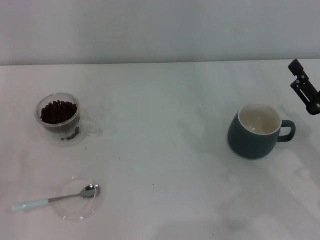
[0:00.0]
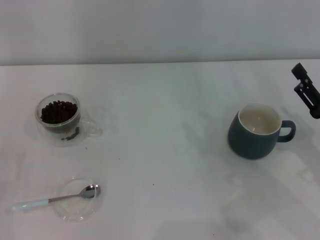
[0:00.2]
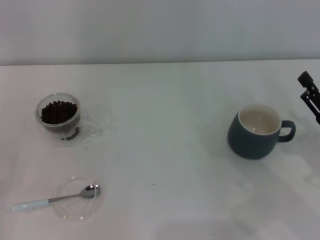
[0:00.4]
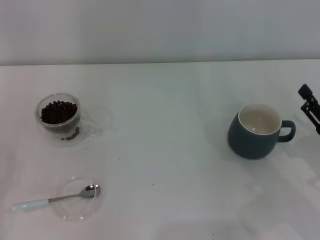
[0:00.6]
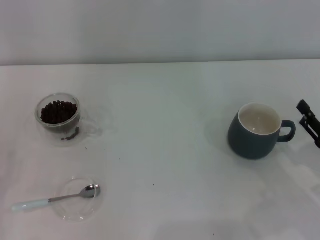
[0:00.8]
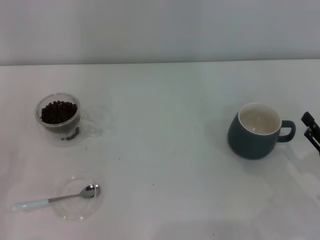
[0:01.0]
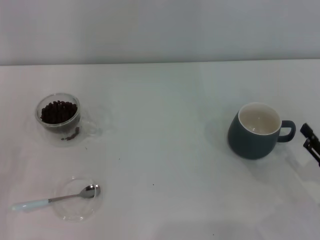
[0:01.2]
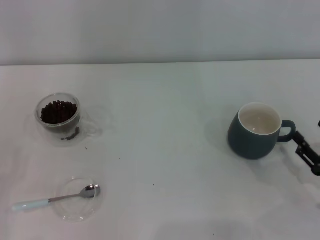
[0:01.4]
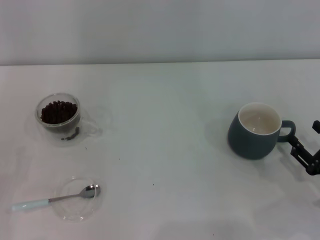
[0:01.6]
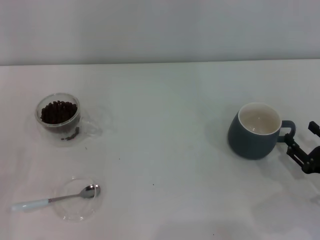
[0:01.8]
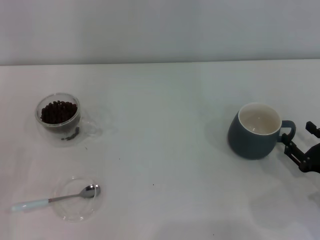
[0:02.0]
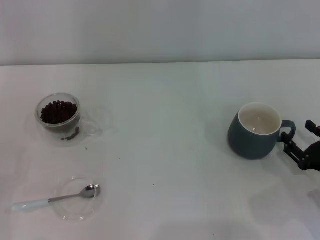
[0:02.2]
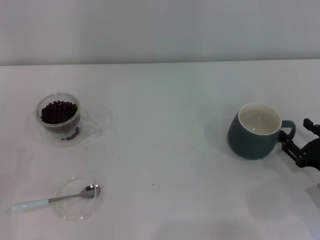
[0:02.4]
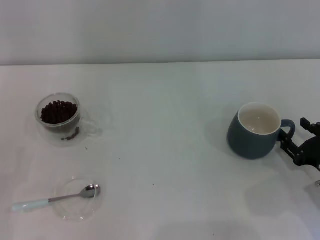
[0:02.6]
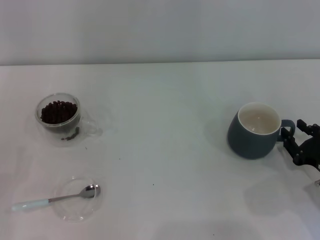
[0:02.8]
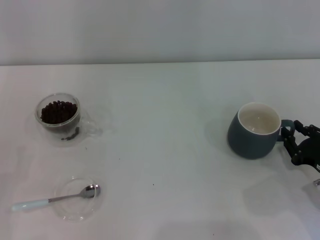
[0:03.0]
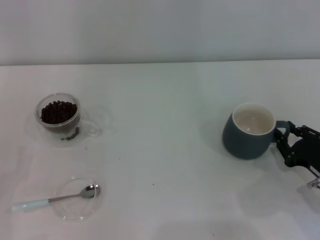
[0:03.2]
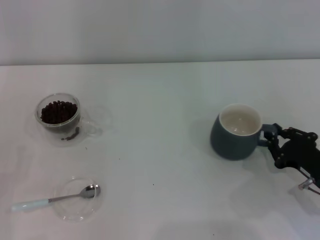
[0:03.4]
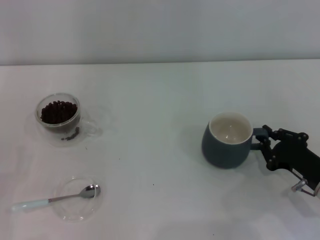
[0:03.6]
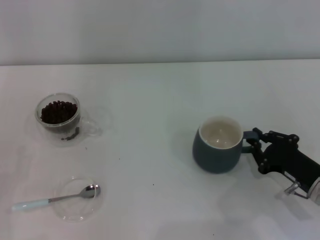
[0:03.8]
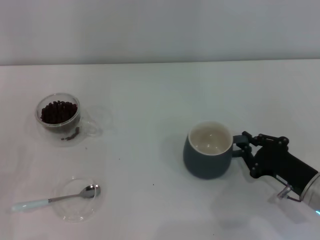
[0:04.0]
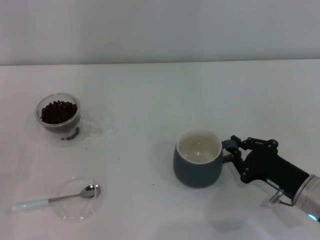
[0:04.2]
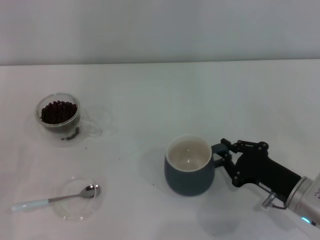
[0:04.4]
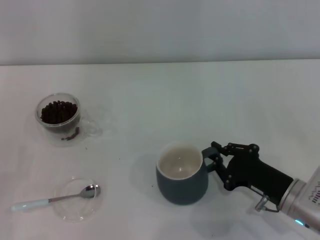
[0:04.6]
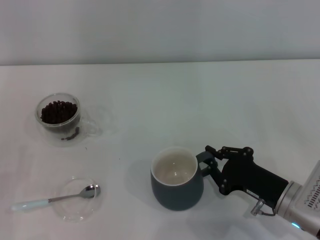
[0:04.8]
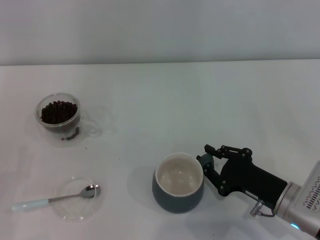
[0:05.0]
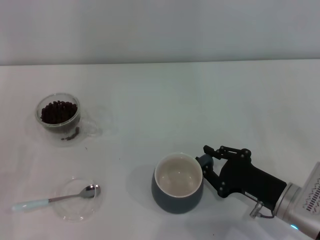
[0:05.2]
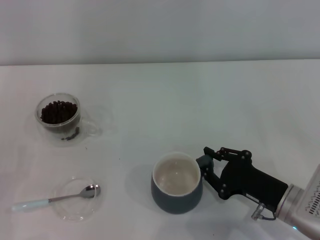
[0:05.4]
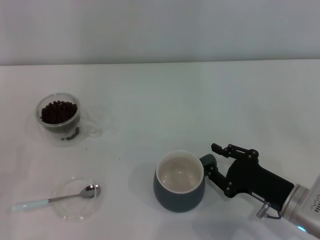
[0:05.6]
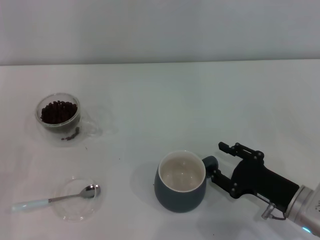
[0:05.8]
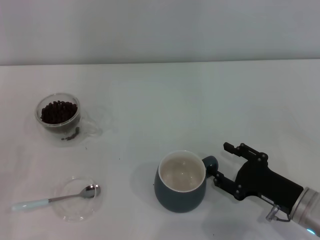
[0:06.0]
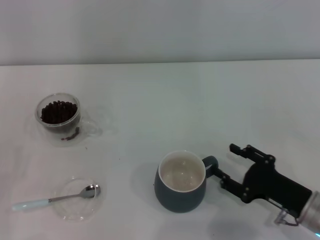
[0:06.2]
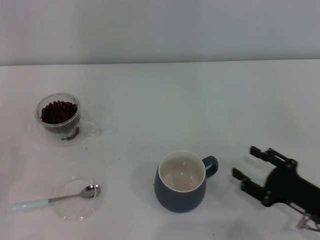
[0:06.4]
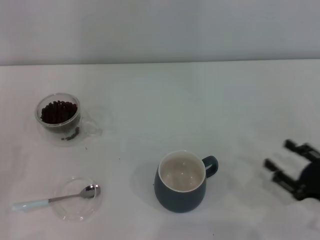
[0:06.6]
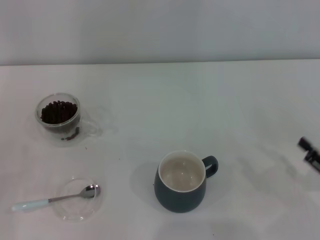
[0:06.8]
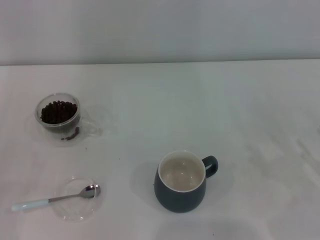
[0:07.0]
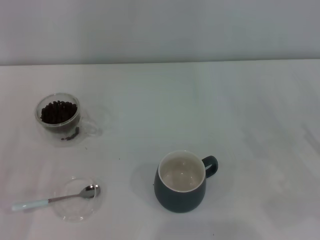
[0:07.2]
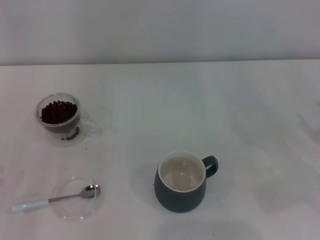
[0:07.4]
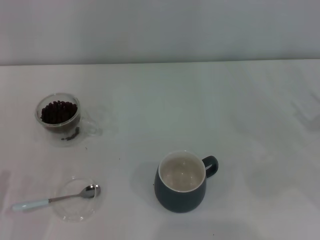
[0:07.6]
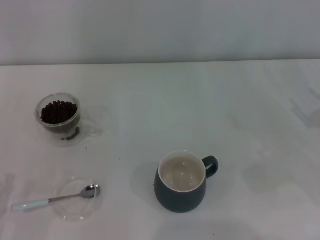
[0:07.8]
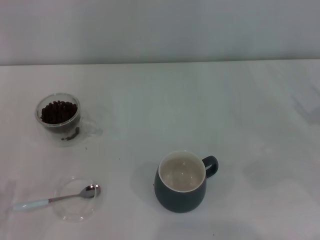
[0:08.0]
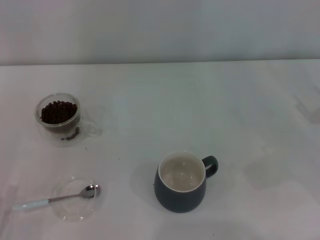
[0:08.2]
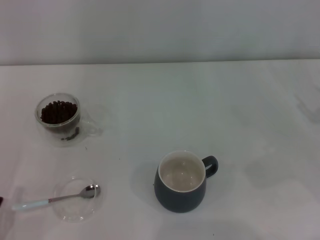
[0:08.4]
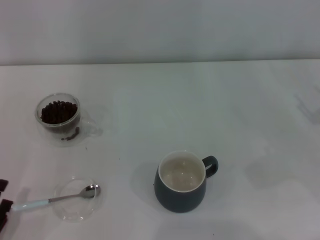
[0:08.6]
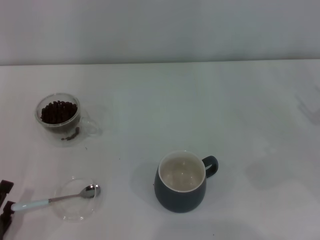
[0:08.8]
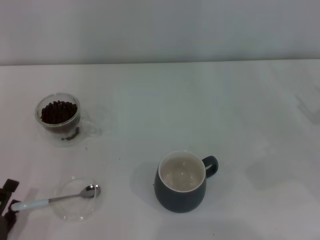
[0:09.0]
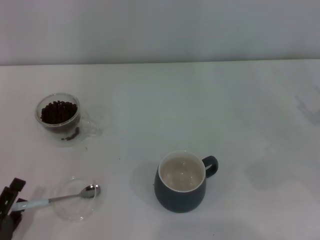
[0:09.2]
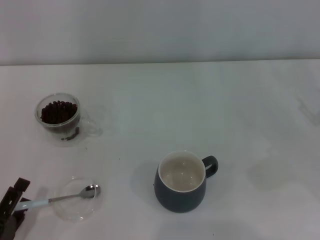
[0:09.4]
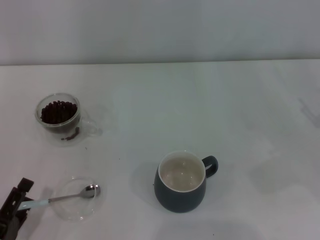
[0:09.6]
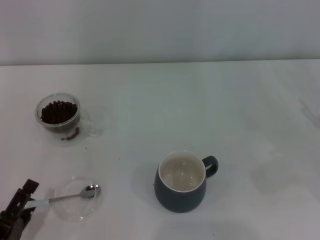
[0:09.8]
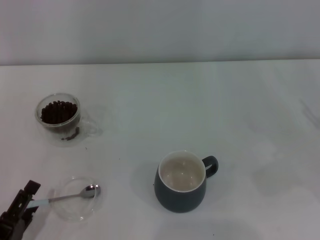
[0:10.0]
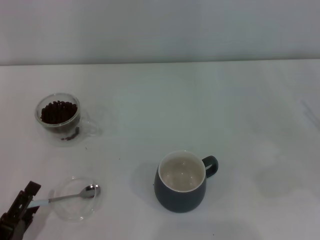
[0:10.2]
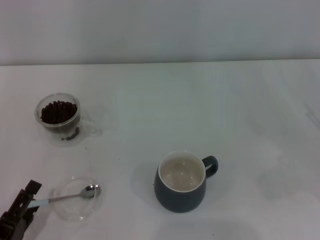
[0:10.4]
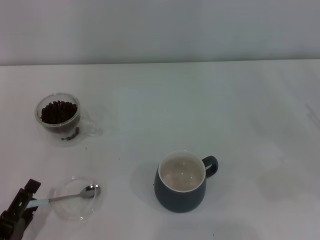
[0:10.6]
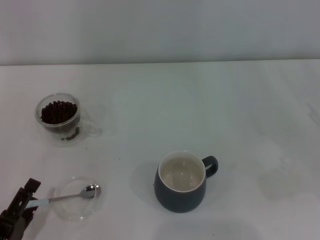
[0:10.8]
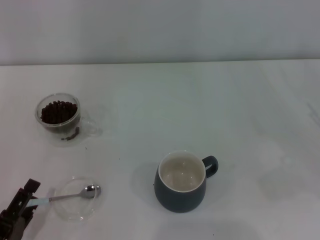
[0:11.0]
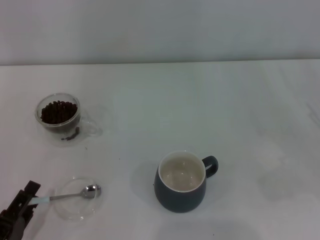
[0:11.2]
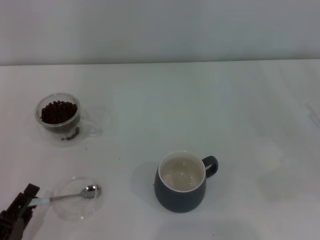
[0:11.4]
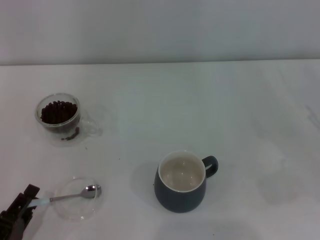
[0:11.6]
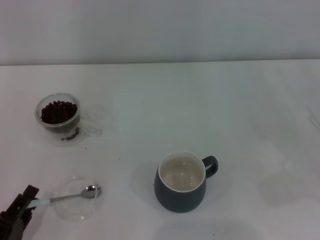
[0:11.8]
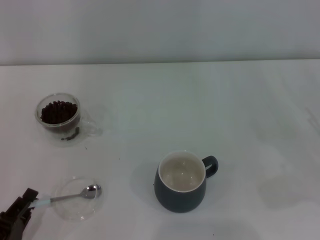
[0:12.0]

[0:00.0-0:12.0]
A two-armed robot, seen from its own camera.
Task of the whole recording: Use a blue spoon to take out the coffee beans from the glass and pour them into the gray cup.
Step, 0:00.0 to 0:06.4: Move the cup to the center of view with the left gripper.
0:00.0 to 0:01.6: The right gripper moves downward, roughly 5 cm.
0:01.6 to 0:03.0: The grippers make only small movements.
0:03.0 to 0:04.4: The right gripper shifts roughly 10 cm to the left, and closes.
0:04.4 to 0:06.0: The right gripper opens.
0:06.0 to 0:07.6: The right gripper goes about 15 cm to the right and upward.
0:09.0 to 0:10.4: There are only small adjustments of the grippers.
0:10.4 to 0:12.0: The left gripper closes.

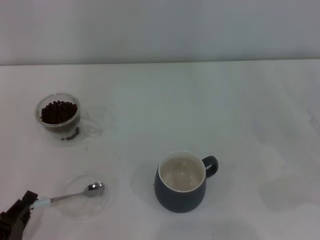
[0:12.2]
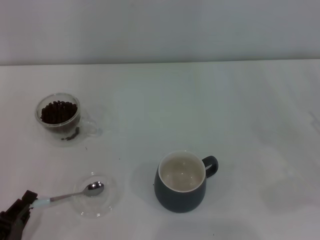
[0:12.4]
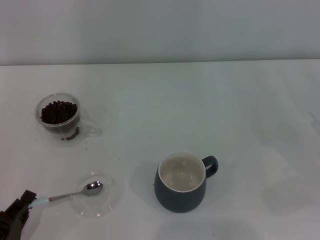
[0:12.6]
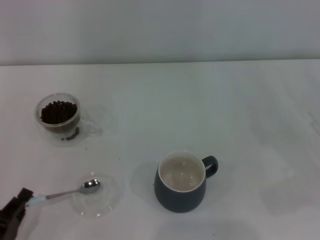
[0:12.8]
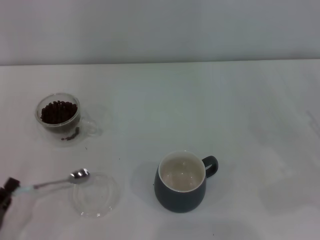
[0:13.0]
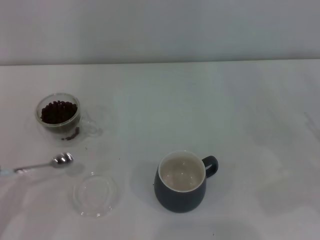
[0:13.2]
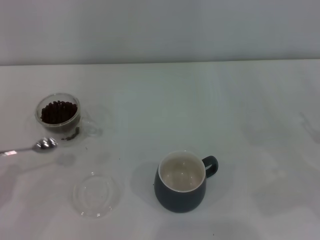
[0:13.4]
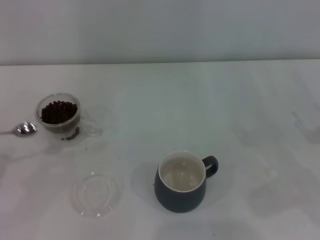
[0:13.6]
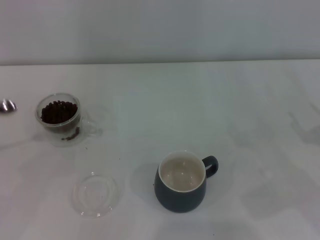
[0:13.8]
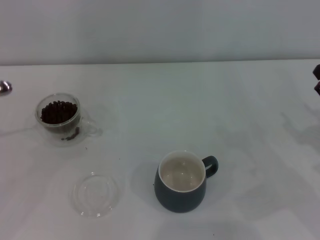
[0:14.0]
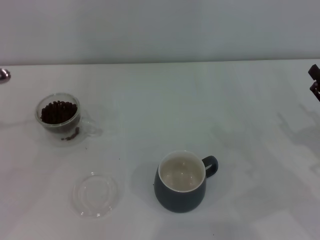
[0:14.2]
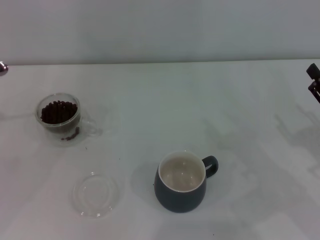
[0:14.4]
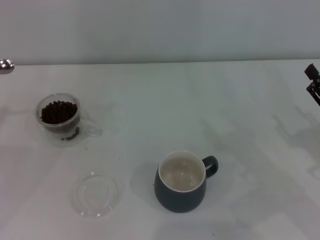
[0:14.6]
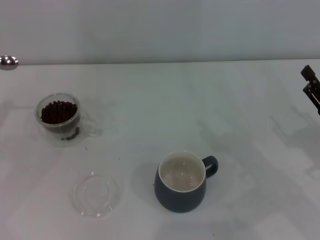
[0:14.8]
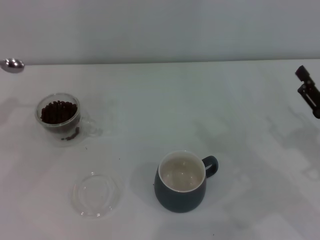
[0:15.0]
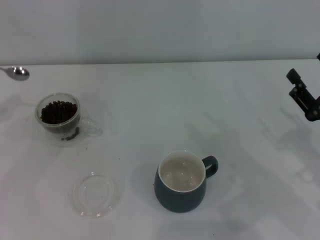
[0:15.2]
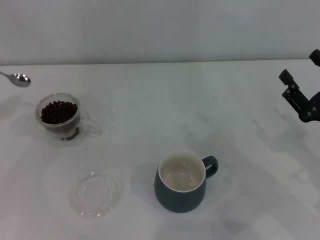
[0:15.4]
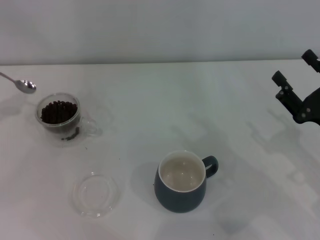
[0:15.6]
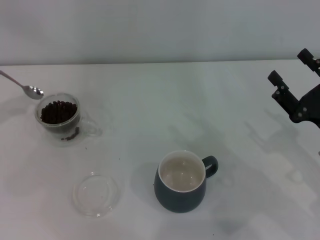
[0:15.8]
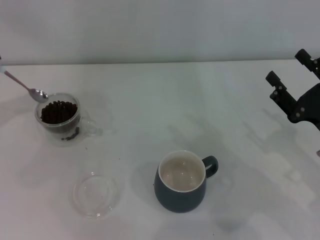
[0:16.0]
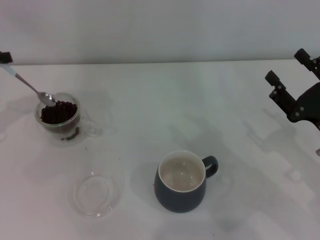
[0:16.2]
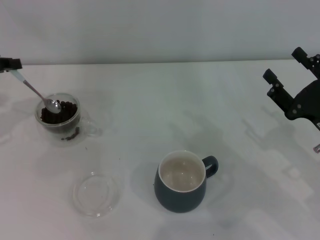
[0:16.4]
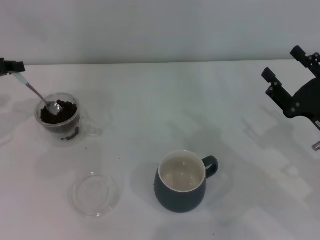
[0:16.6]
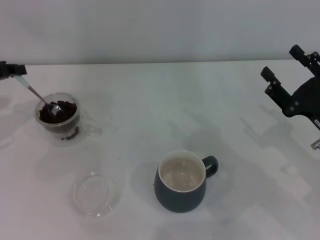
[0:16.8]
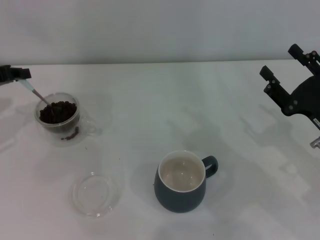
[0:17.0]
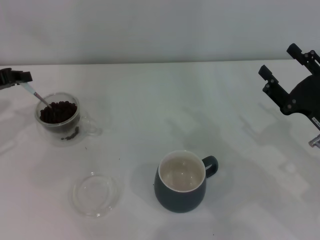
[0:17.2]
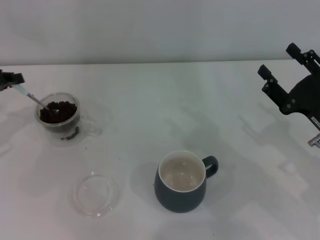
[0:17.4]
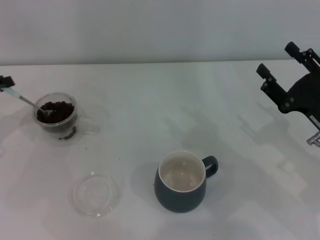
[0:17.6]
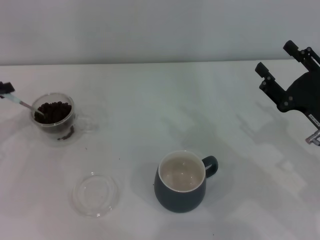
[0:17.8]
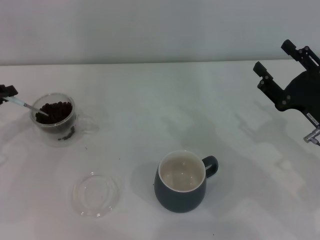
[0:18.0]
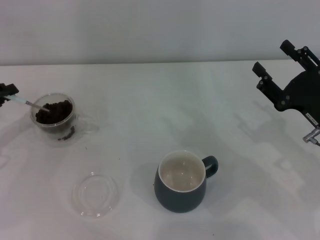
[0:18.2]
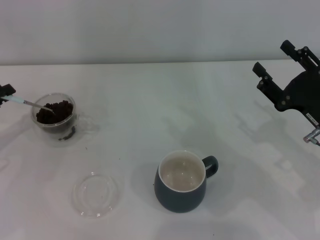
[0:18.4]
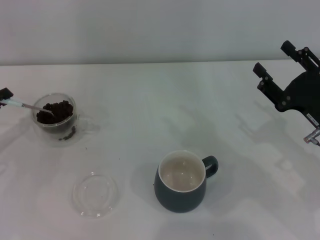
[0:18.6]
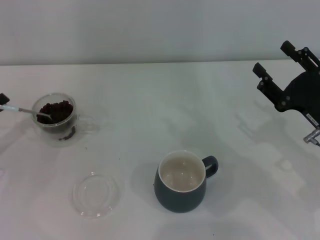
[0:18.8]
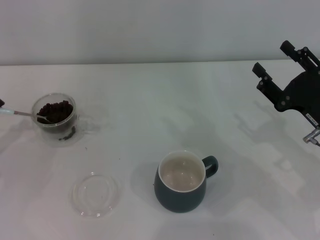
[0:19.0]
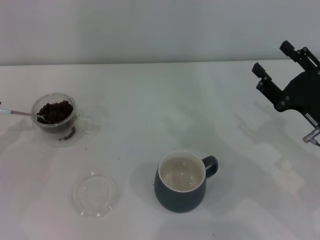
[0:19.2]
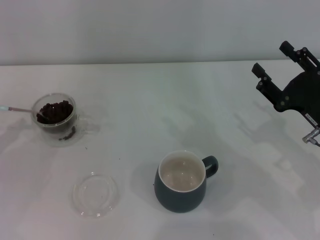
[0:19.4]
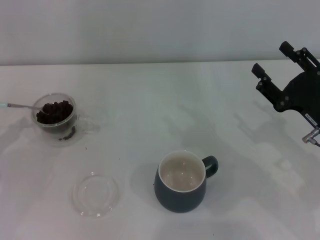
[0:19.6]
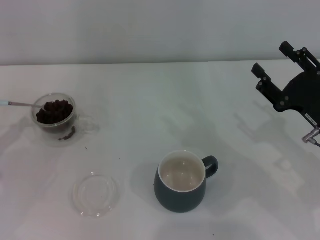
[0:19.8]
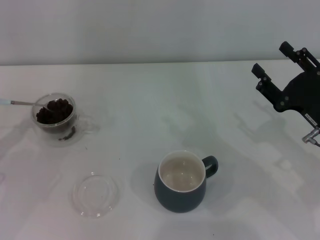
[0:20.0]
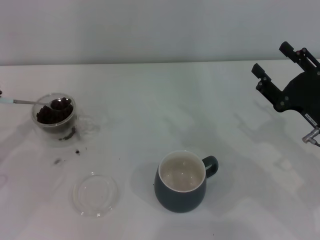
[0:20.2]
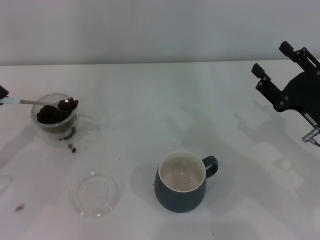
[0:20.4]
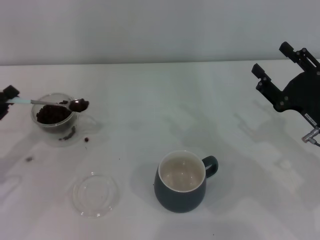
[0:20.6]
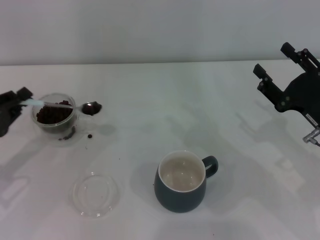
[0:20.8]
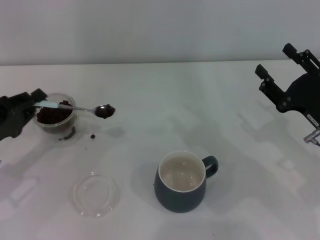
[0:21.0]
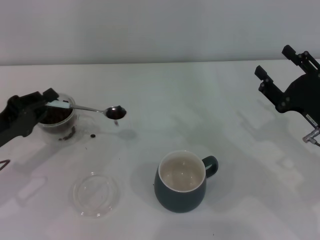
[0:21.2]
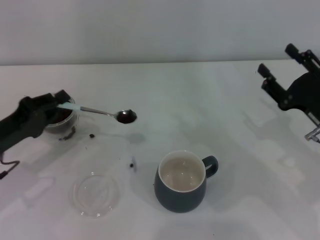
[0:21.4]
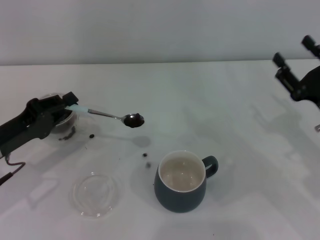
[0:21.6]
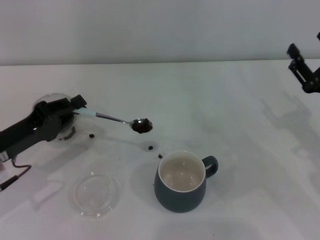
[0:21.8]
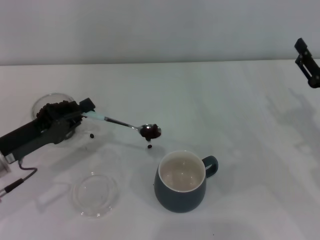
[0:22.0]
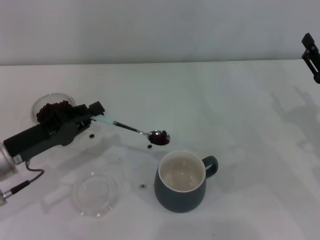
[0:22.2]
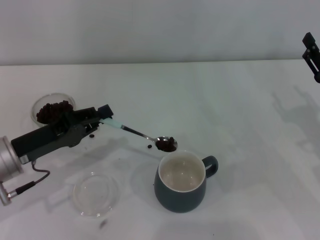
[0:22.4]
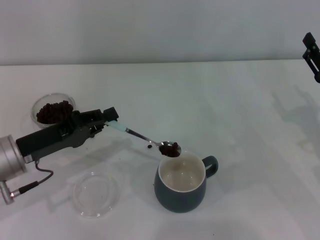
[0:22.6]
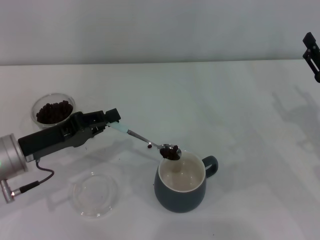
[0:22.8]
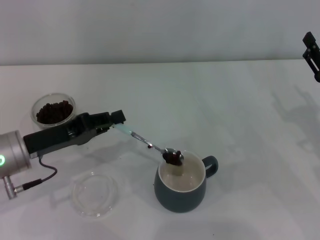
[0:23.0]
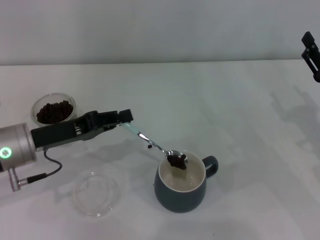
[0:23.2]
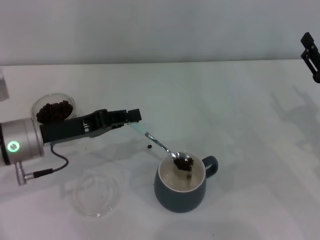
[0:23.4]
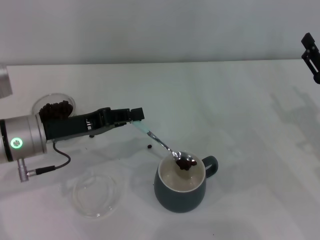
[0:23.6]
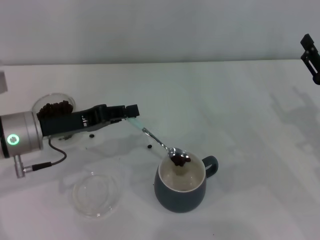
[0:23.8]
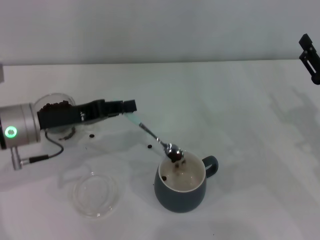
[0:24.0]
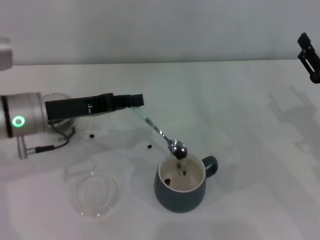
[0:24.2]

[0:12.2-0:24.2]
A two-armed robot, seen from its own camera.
Task of the whole recording: Use a blue spoon to take out the coffee beans from the glass and pour them into the gray cup.
0:12.2 to 0:13.8: The left gripper is displaced to the left, upward and forward by roughly 15 cm.
0:15.2 to 0:16.6: The left gripper is displaced to the right and forward by some 10 cm.
0:16.6 to 0:18.2: The left gripper moves downward, approximately 5 cm.
0:19.8 to 0:21.2: The left gripper shifts approximately 5 cm to the right.
0:21.2 to 0:22.6: The left gripper shifts some 5 cm to the right.
0:22.6 to 0:24.2: The left gripper heads forward, covering roughly 5 cm.
